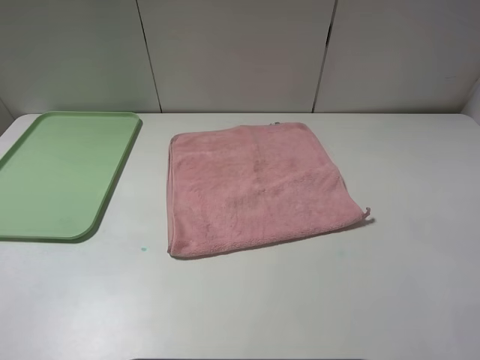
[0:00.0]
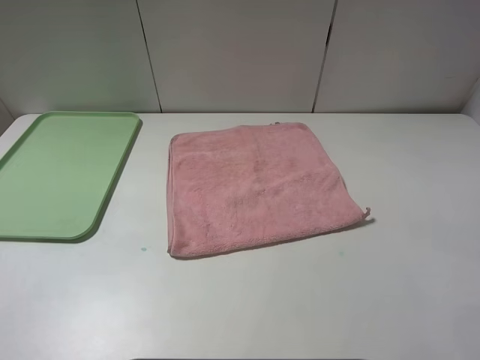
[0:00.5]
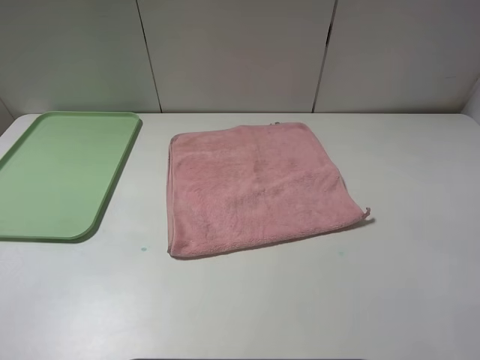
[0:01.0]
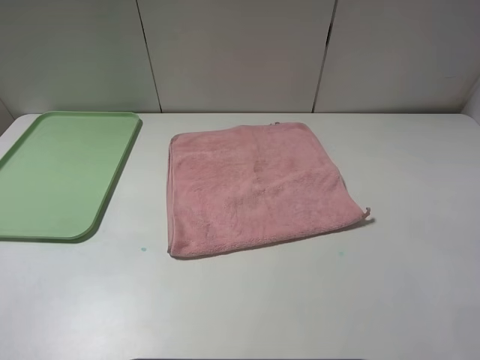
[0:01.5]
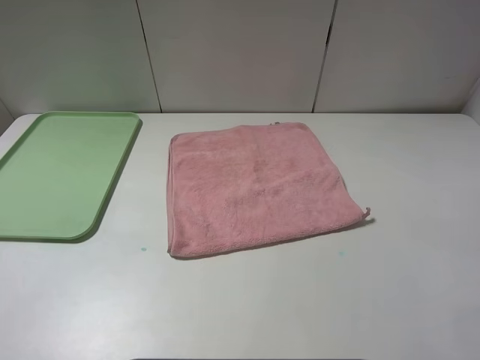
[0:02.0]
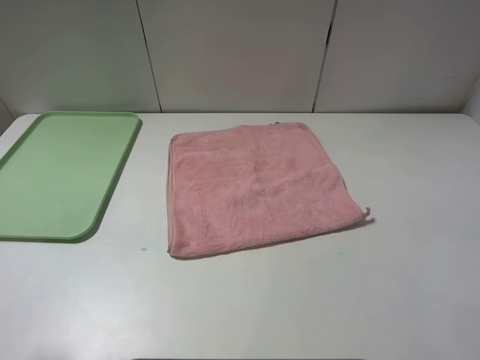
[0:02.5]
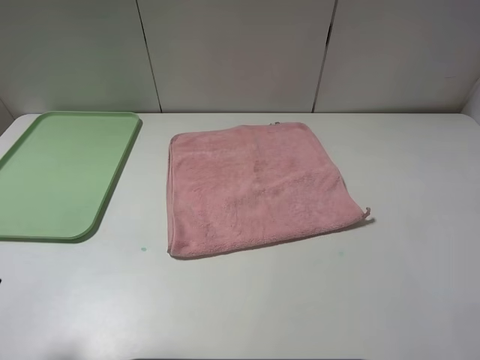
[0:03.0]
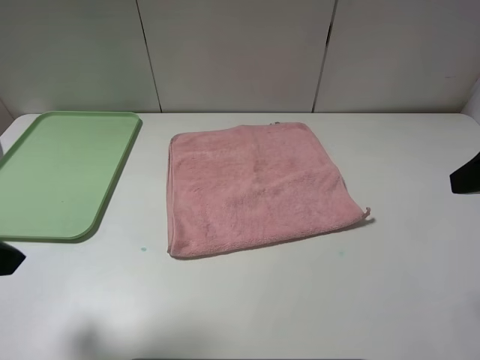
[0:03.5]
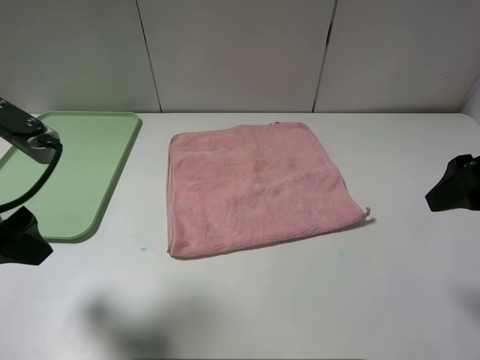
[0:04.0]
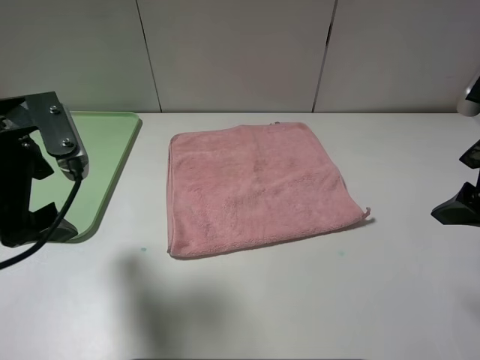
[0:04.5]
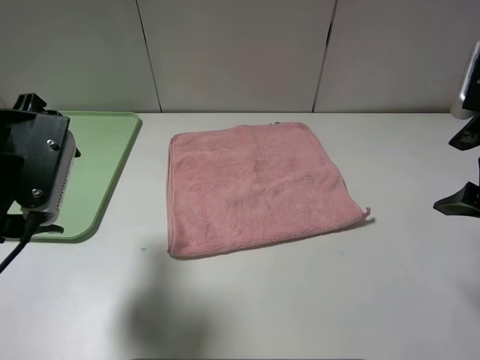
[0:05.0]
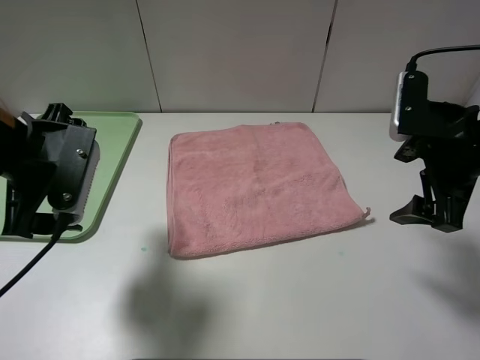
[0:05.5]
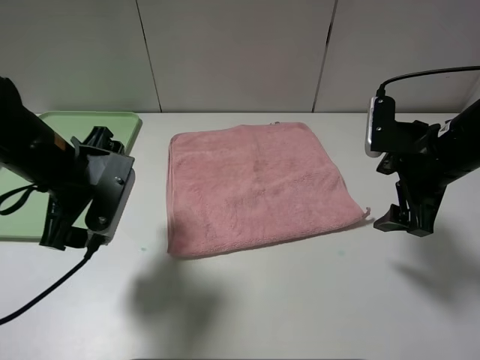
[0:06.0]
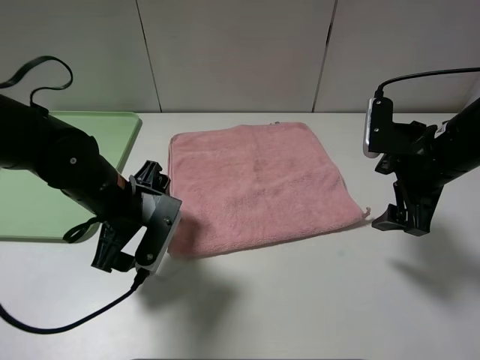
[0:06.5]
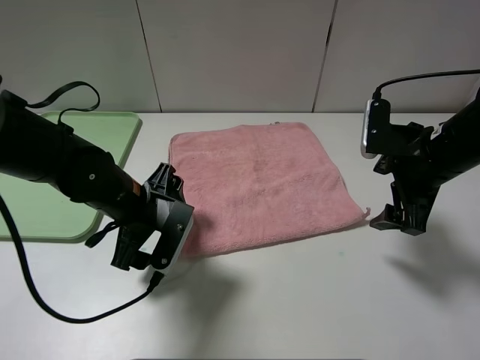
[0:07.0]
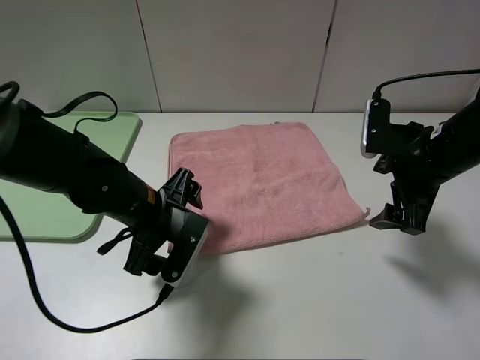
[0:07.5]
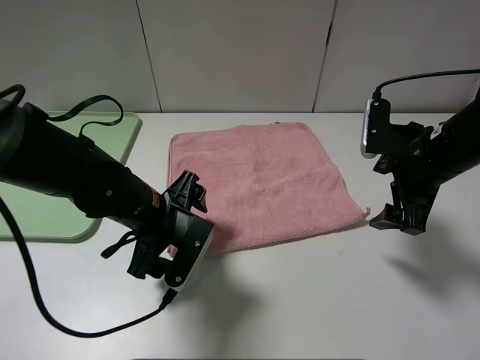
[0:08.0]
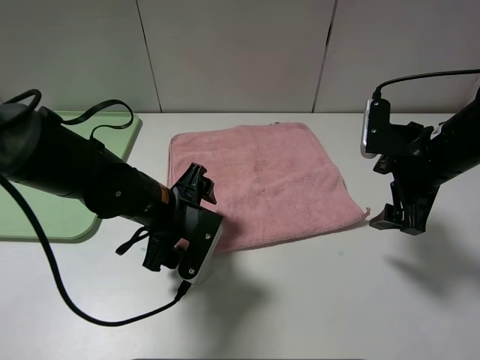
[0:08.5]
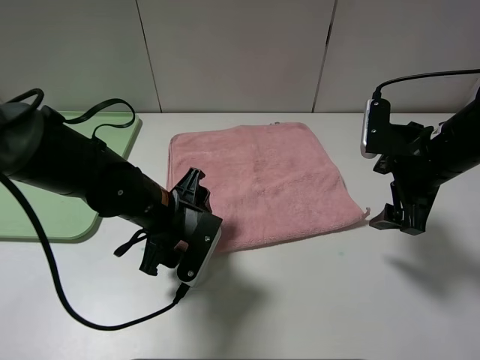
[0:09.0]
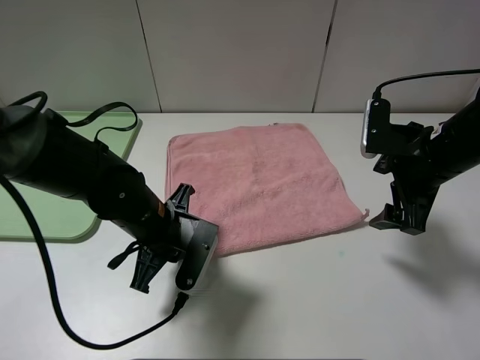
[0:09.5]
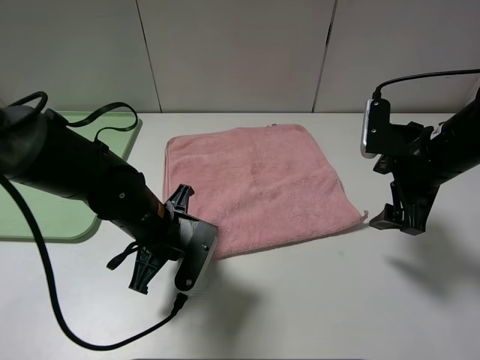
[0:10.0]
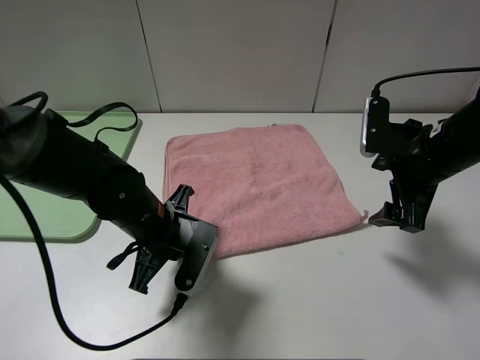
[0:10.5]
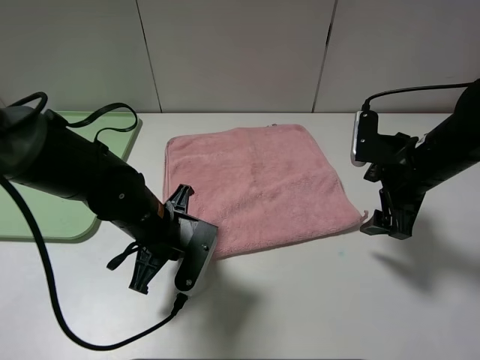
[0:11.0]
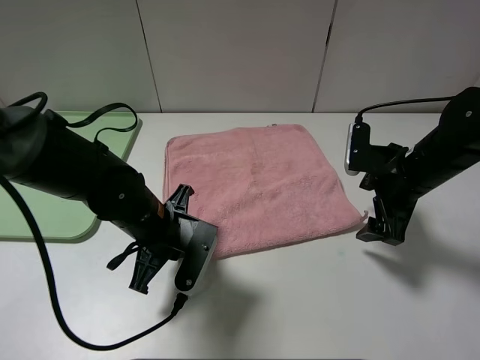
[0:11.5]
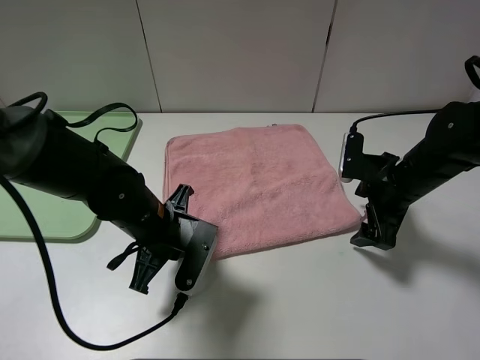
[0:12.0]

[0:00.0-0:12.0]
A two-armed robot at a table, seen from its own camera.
0:02.0 to 0:04.0: The two grippers go approximately 15 cm forward.
0:04.0 to 0:06.0: The left gripper travels downward, forward and to the right by roughly 10 cm; the right gripper heads downward and forward, covering approximately 10 cm.
0:06.0 to 0:08.0: The left gripper moves to the right and downward, approximately 10 cm.
0:08.0 to 0:10.0: The left gripper closes its fingers.
0:10.0 to 0:12.0: The right gripper heads downward, covering about 5 cm.

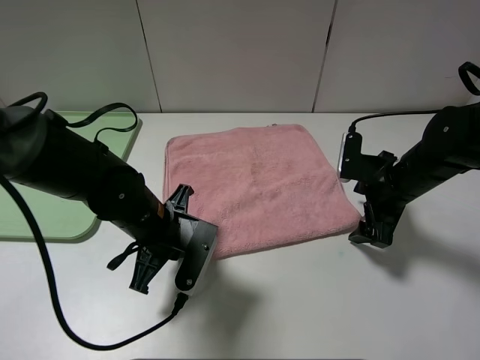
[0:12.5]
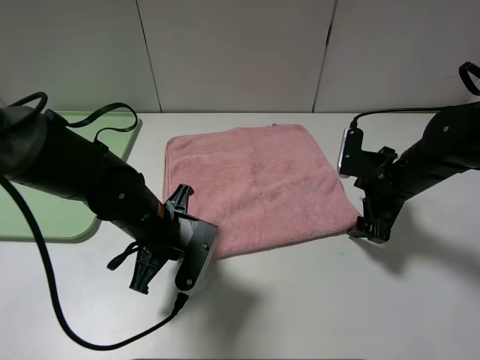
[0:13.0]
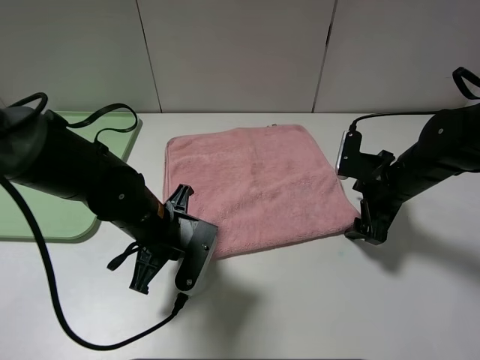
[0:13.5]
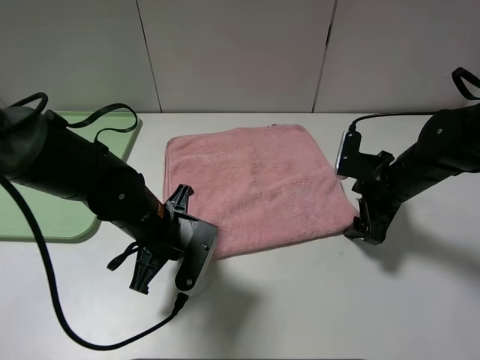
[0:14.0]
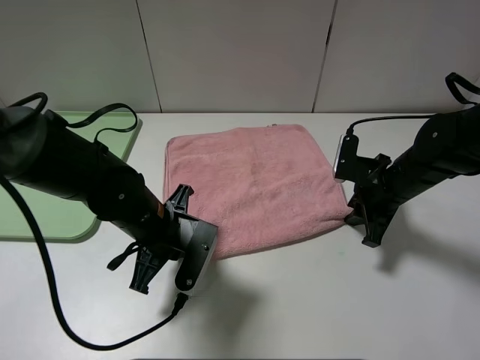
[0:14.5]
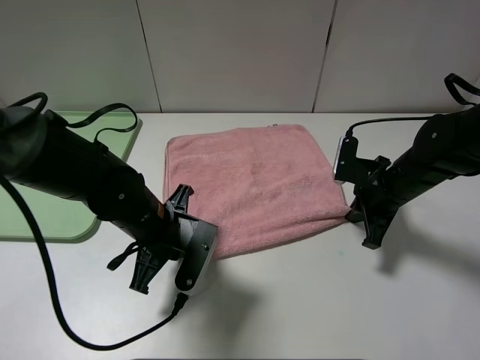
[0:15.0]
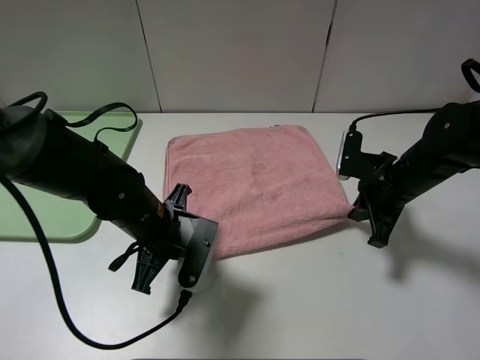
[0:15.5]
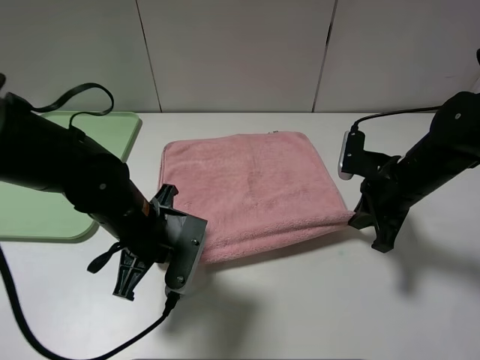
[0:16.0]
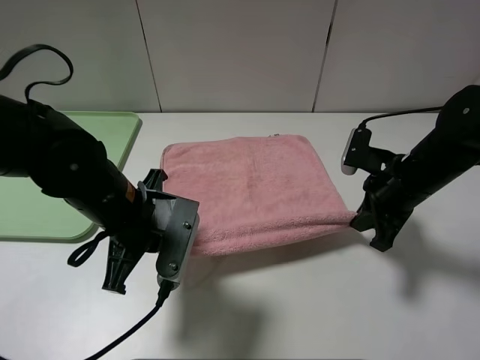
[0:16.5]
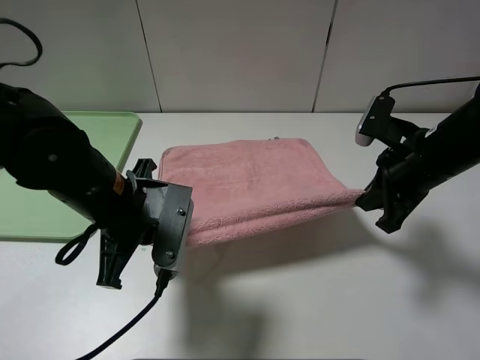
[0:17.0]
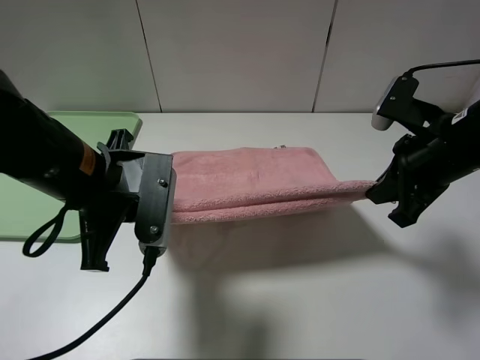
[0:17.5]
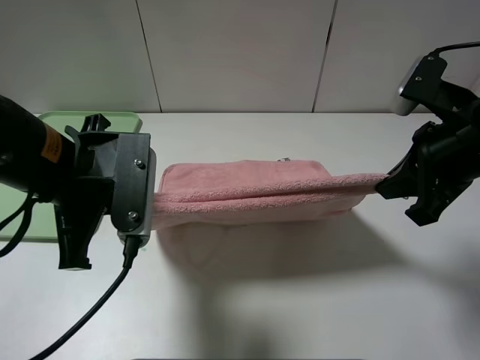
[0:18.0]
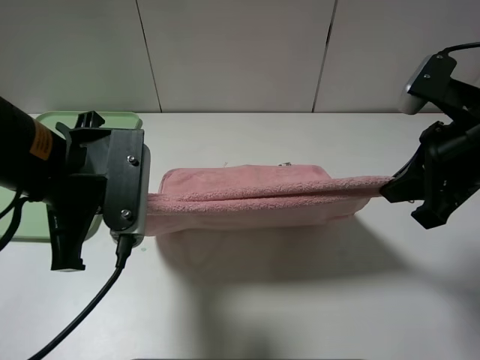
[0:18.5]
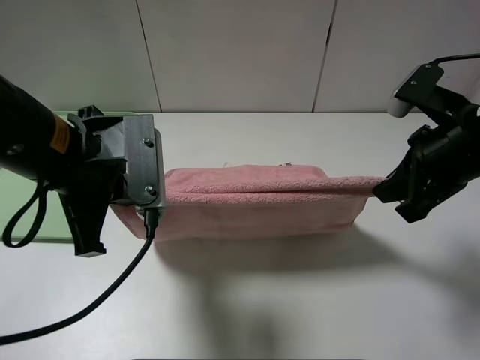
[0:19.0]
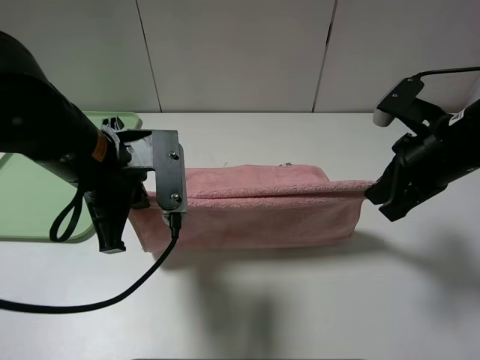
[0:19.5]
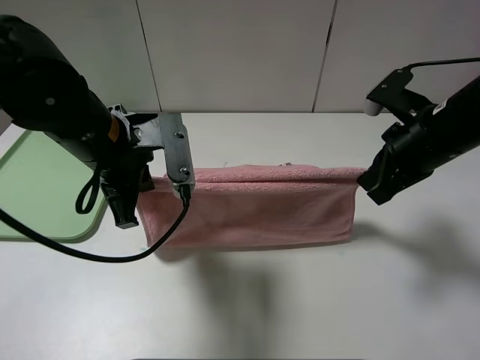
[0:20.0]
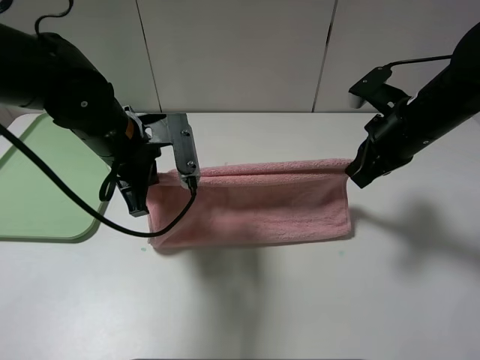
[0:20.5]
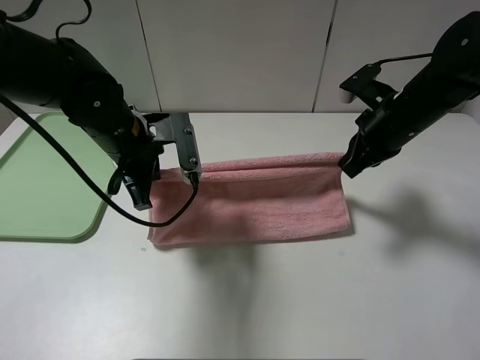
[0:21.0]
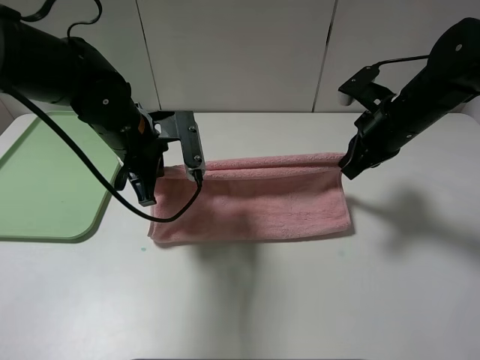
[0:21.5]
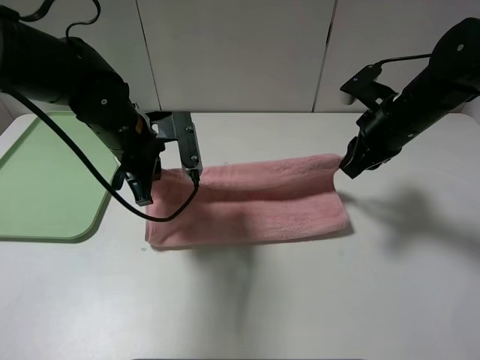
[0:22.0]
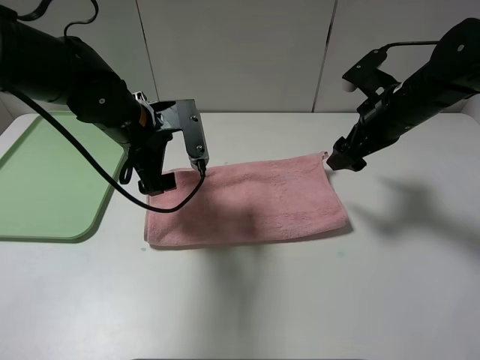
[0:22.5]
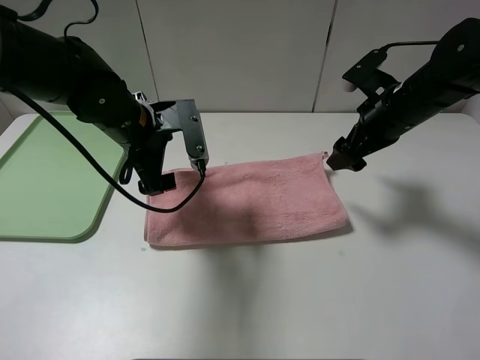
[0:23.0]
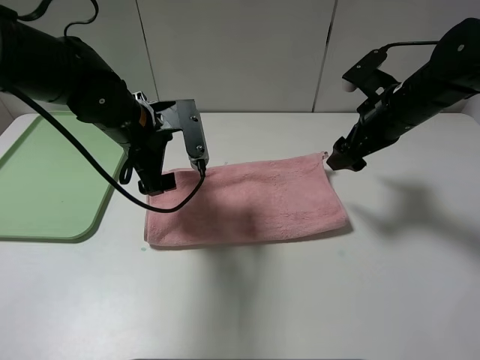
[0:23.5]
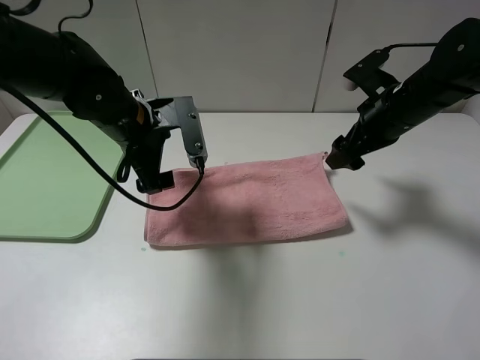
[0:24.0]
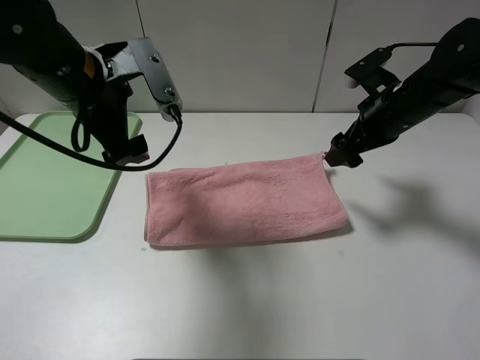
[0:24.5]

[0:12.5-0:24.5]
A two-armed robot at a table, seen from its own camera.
Step, 0:12.5 to 0:22.5: Fold the pink towel upwards.
0:12.5 to 0:14.5: The right gripper closes up.
0:14.5 to 0:16.5: The right gripper shifts by some 5 cm; the left gripper moves upward, about 5 cm.
0:16.5 to 0:18.5: The right gripper shifts some 15 cm upward and backward. Meanwhile the left gripper heads upward, covering about 10 cm.
0:18.5 to 0:20.5: Both grippers travel together forward and downward, roughly 10 cm.
0:20.5 to 0:22.5: The left gripper opens its fingers. Meanwhile the right gripper opens.
0:22.5 to 0:24.5: The left gripper travels upward by approximately 10 cm.

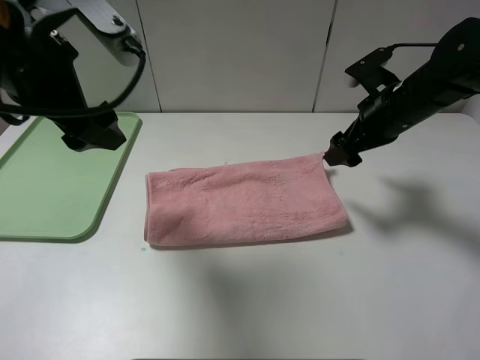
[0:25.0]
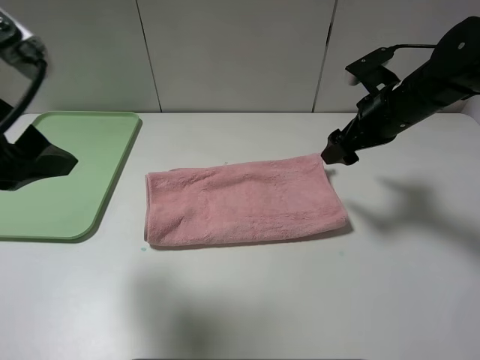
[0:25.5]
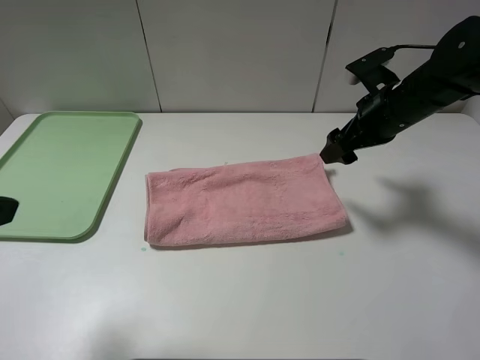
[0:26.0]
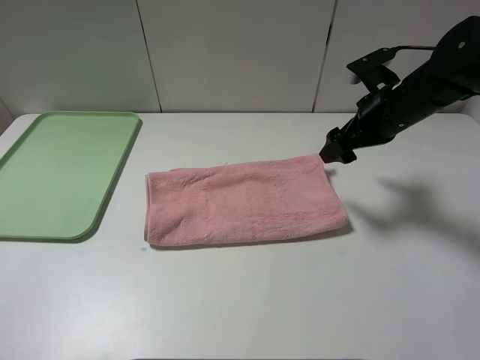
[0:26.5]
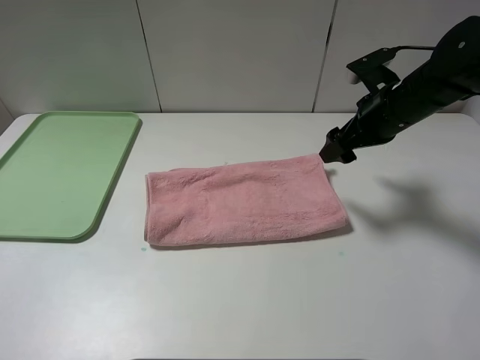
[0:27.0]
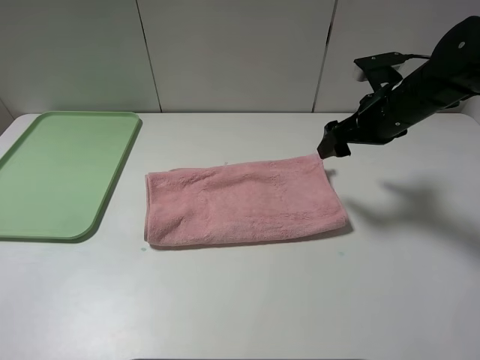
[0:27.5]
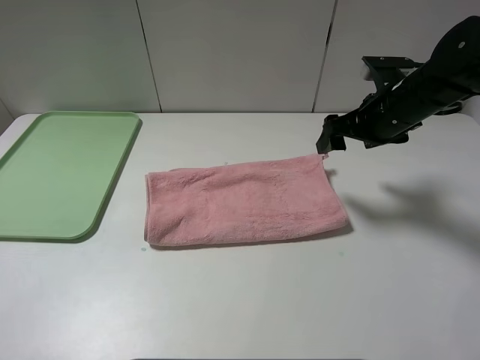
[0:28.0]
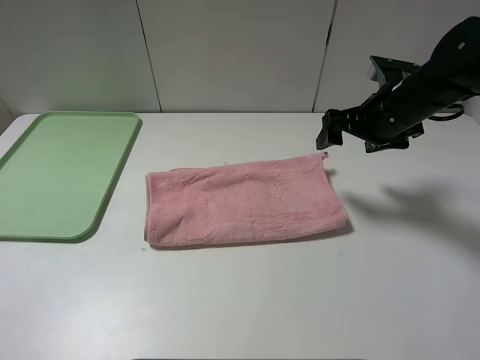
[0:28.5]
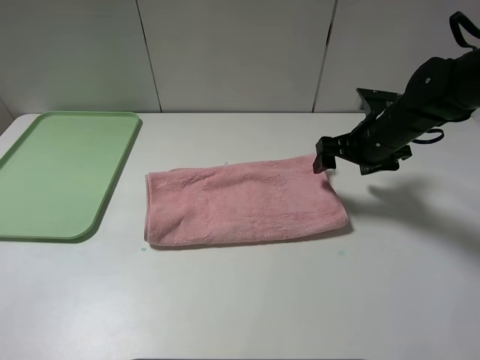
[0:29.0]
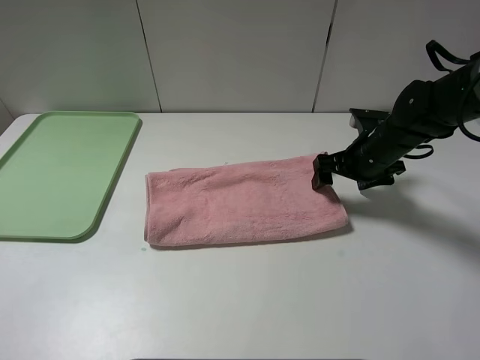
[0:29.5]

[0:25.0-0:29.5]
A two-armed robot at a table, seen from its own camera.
0:25.0 to 0:27.0: The left gripper heads backward and to the left, covering some 25 cm.
0:27.0 to 0:29.5: The right gripper travels downward by approximately 10 cm.
